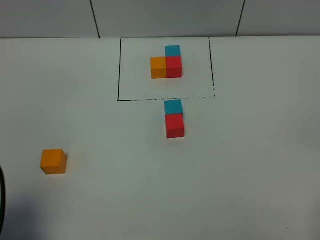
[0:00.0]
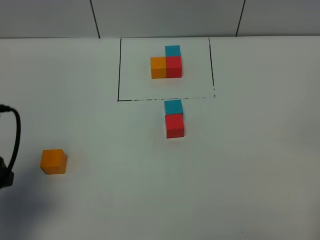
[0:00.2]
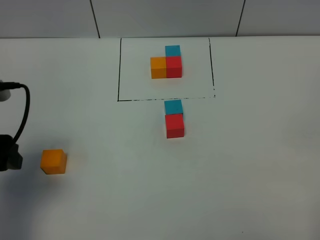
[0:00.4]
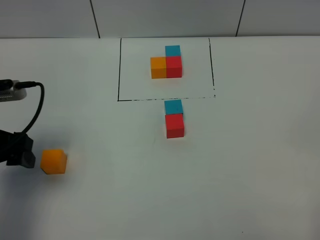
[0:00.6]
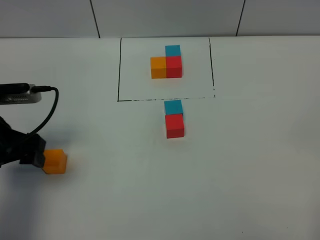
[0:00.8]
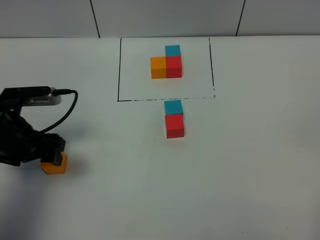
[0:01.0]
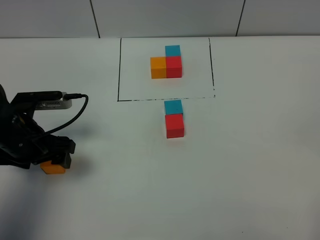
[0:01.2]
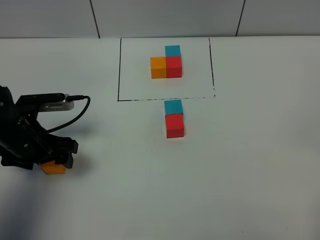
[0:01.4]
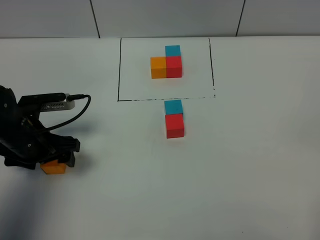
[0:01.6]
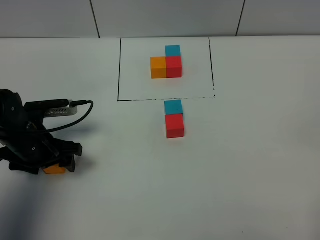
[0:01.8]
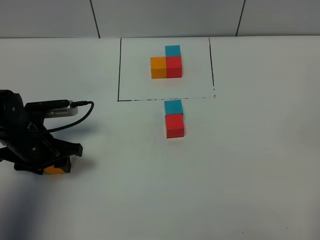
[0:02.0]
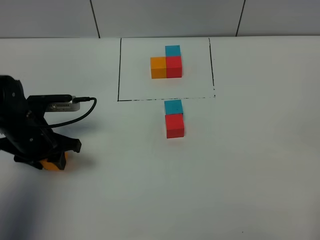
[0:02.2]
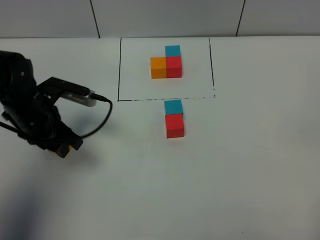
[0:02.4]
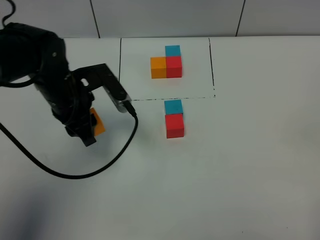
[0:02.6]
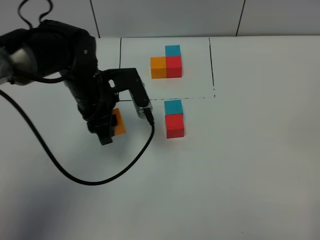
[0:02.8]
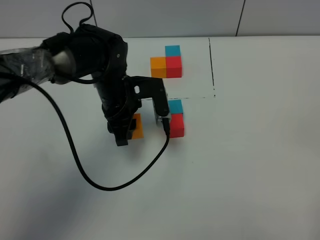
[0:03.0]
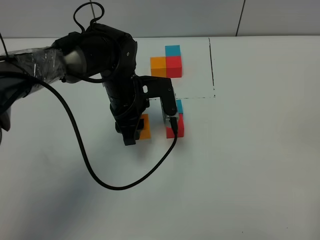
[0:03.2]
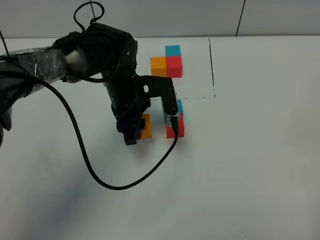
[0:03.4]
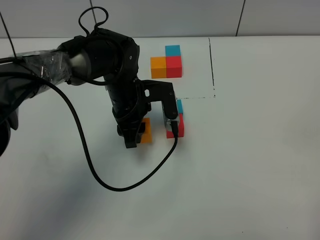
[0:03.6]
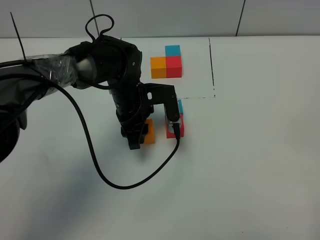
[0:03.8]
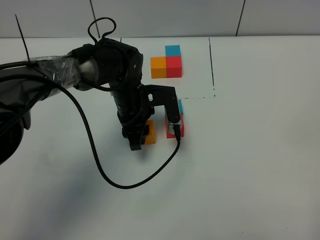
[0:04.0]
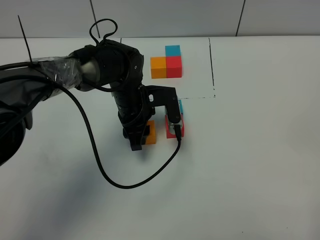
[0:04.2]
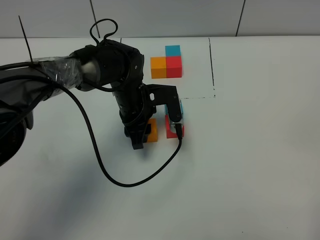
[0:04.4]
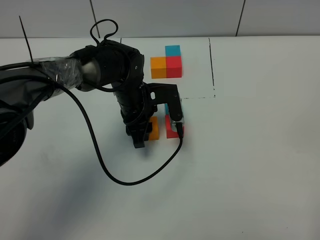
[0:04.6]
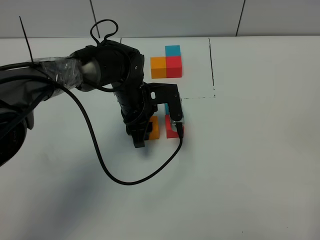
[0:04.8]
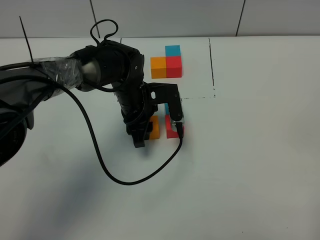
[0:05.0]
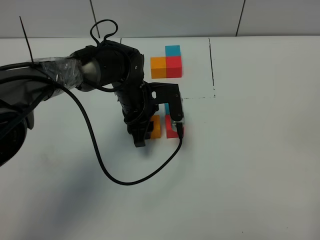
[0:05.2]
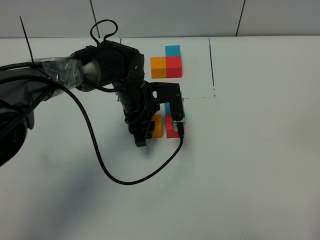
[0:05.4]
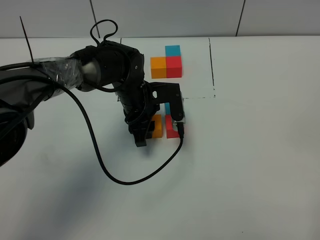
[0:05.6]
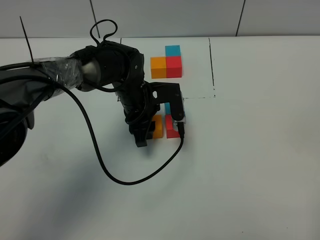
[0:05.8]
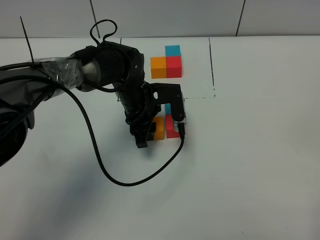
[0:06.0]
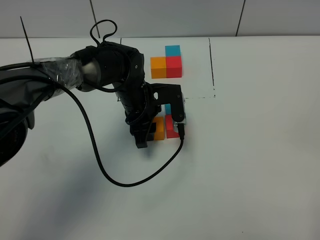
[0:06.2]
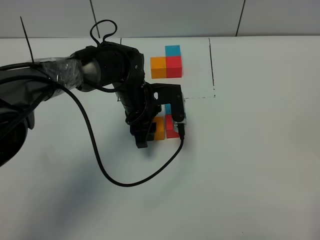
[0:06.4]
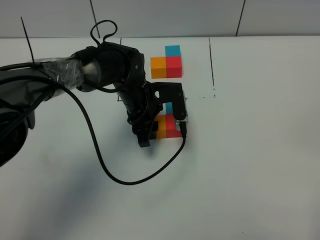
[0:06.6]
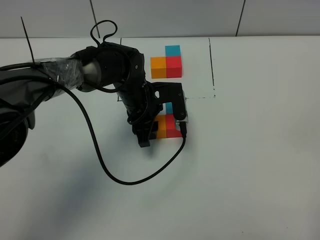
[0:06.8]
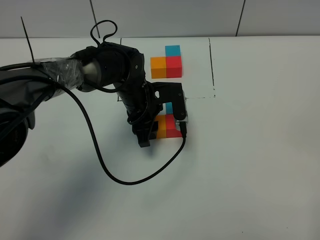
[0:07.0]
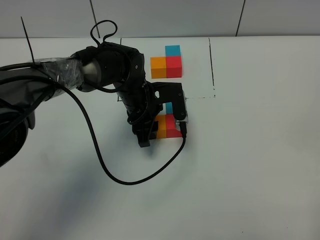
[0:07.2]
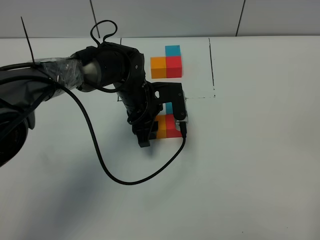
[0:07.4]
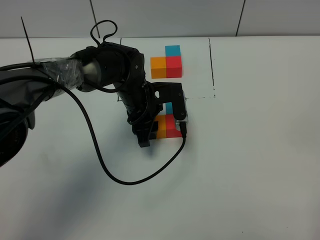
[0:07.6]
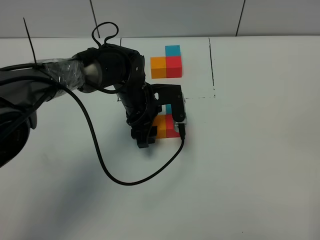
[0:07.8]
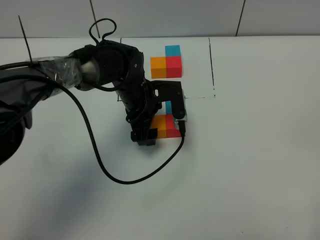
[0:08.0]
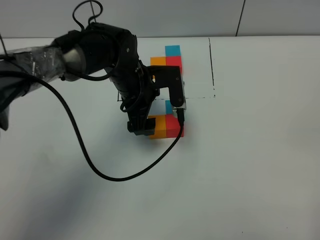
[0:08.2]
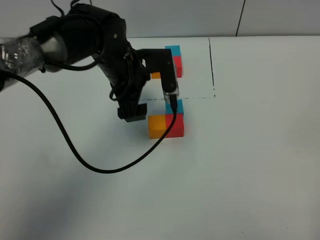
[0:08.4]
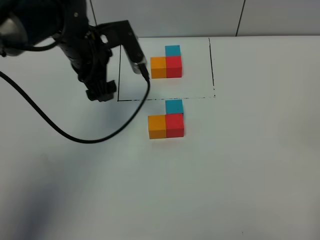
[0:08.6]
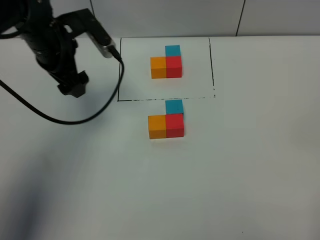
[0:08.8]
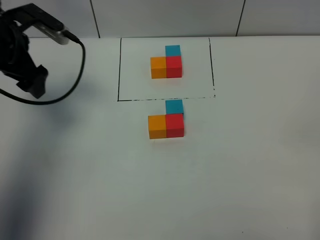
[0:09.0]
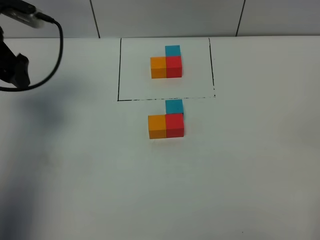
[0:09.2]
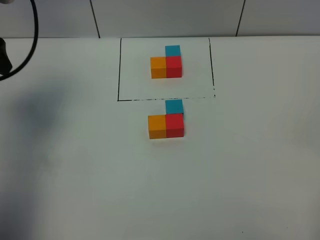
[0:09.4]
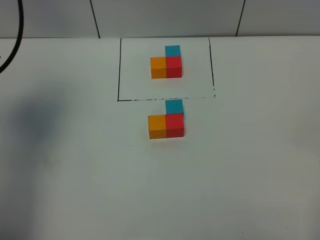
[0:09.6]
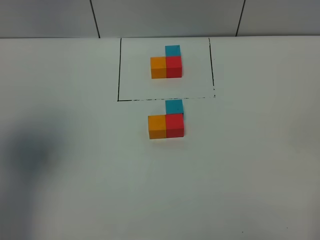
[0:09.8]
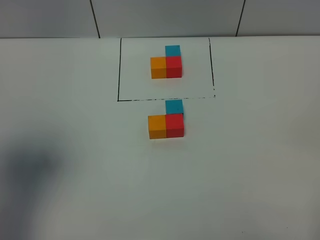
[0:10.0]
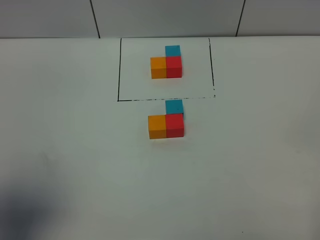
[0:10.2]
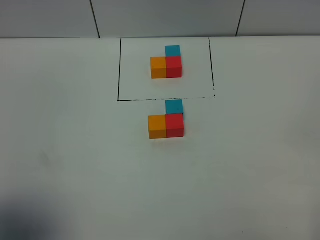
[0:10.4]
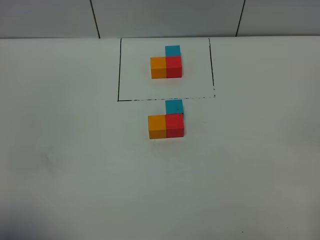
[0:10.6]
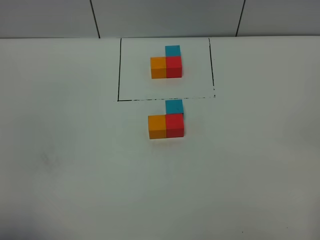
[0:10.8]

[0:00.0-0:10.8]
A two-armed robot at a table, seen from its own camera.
Task of the whole recording: According to the building block template in front, assemble the scattered blocks together.
Step, 0.0 to 7.8 s: Put the orange build block on the left of the red build block.
0.0 to 1.6 s: The left gripper is displaced forward and downward by about 20 cm.
1.6 to 3.0 s: The left gripper heads to the right and forward, covering about 20 cm, and closes up.
3.0 to 4.6 s: The grippers stay close to where they were, moving slightly.
4.6 to 6.2 s: Neither gripper changes place.
6.2 to 7.8 s: The left gripper opens.
7.8 to 9.2 s: The left gripper moves to the left and upward, approximately 30 cm, and opens up.
9.2 to 10.8 s: The left gripper shifts approximately 35 cm backward.

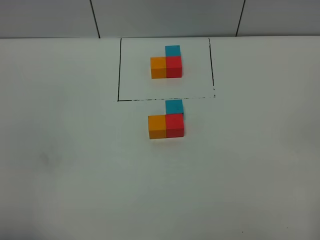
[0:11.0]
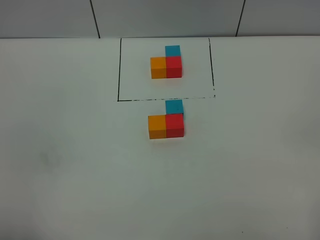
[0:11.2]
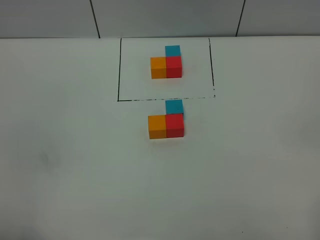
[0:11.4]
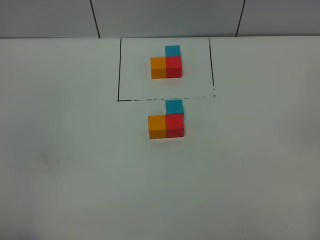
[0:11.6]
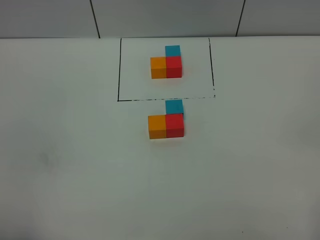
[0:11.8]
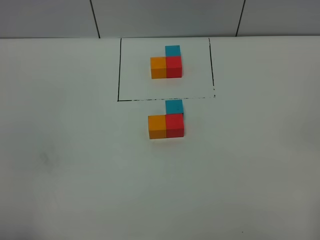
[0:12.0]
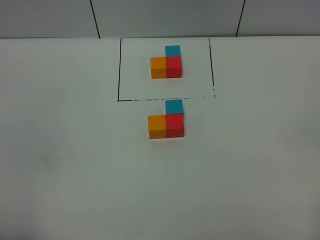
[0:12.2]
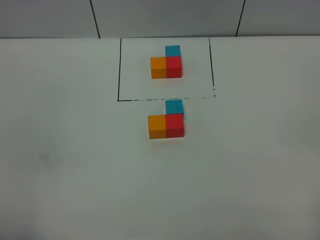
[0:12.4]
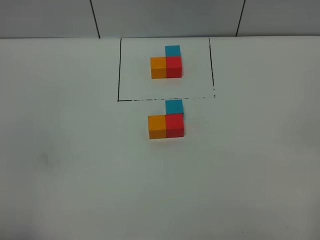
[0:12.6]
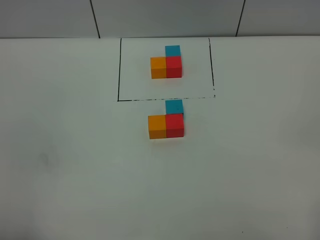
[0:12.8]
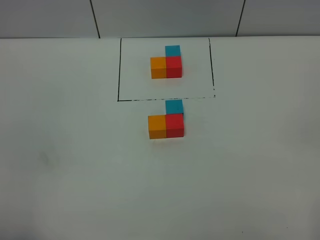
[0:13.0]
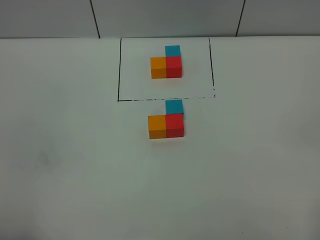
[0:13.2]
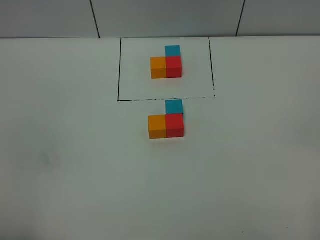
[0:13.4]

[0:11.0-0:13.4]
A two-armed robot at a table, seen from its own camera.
Task of the whole recording: According to the building block template in front, assemble the scattered blocks together.
12.2 to 13.4 s: Both grippers stay put.

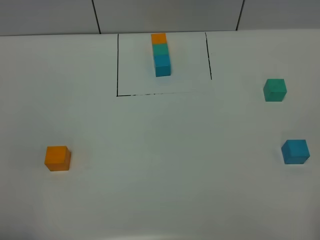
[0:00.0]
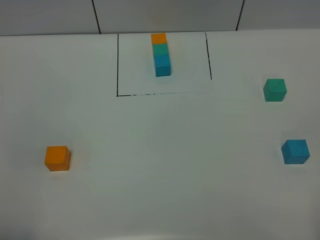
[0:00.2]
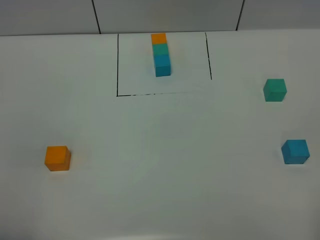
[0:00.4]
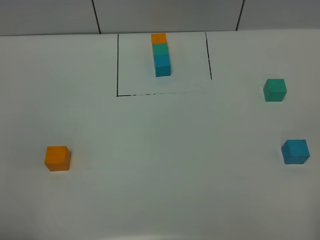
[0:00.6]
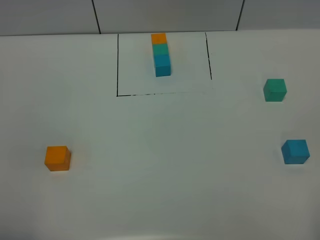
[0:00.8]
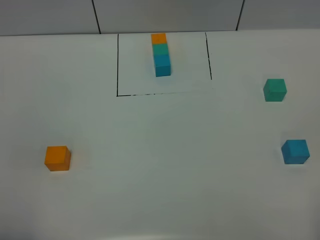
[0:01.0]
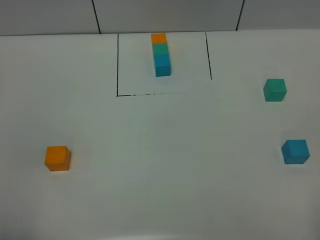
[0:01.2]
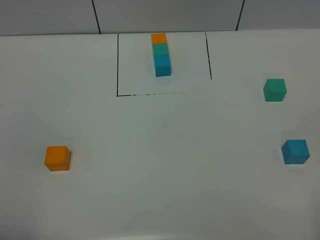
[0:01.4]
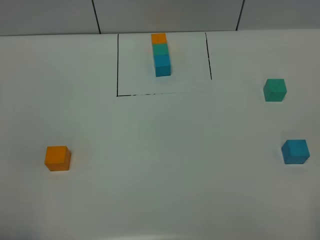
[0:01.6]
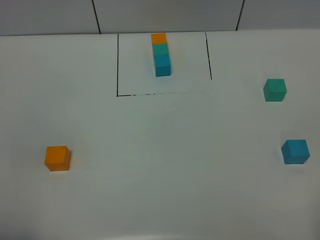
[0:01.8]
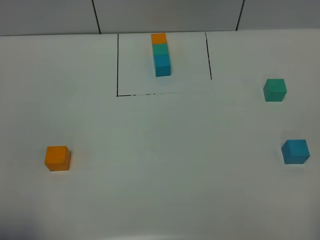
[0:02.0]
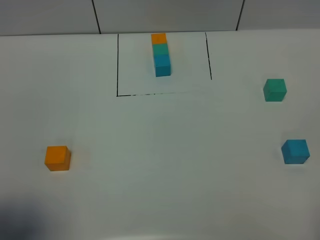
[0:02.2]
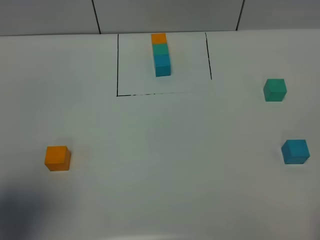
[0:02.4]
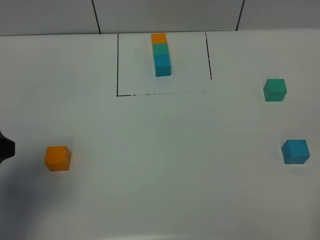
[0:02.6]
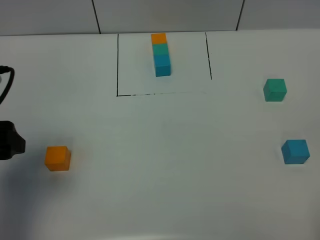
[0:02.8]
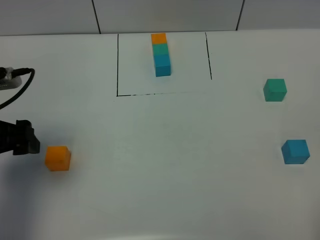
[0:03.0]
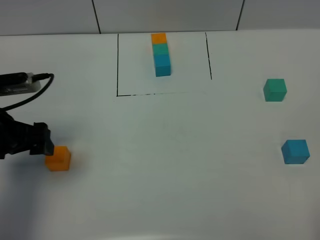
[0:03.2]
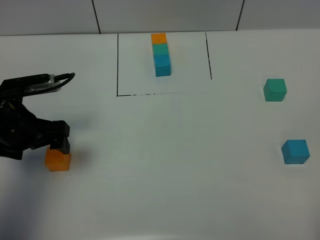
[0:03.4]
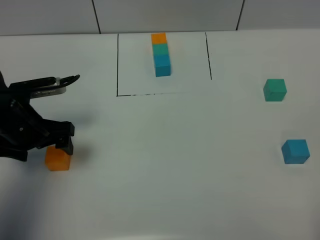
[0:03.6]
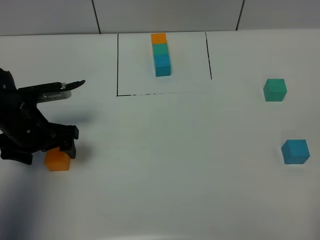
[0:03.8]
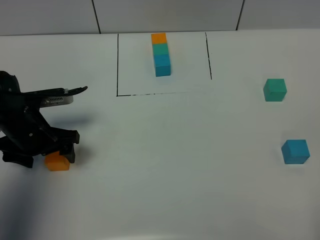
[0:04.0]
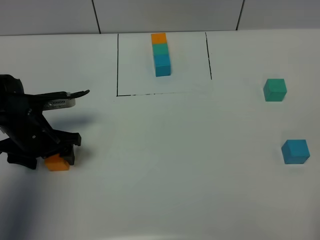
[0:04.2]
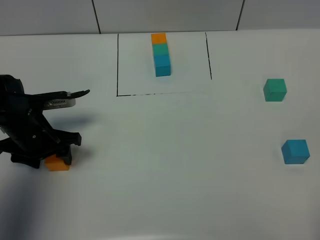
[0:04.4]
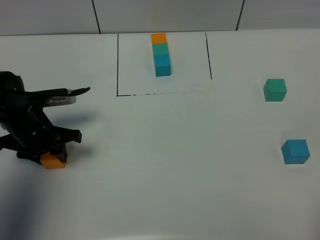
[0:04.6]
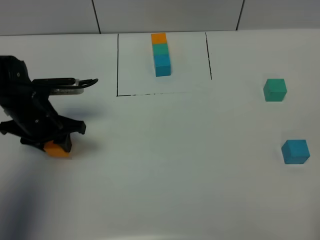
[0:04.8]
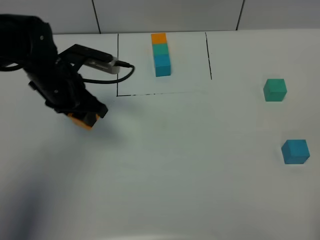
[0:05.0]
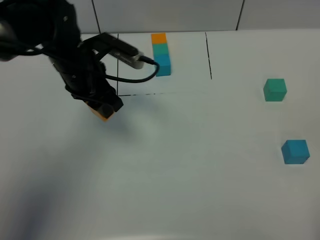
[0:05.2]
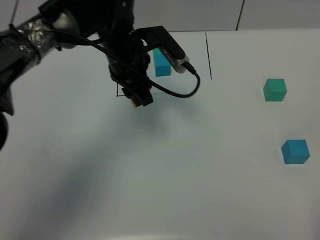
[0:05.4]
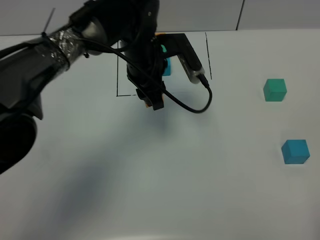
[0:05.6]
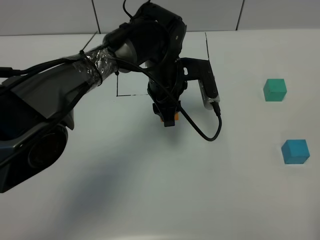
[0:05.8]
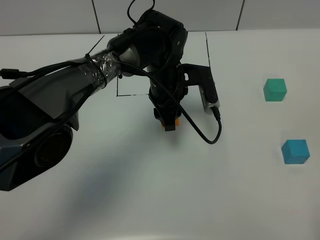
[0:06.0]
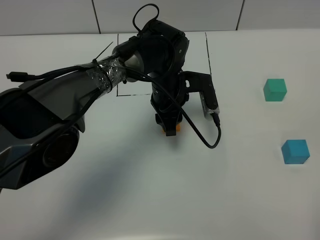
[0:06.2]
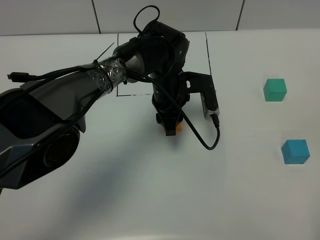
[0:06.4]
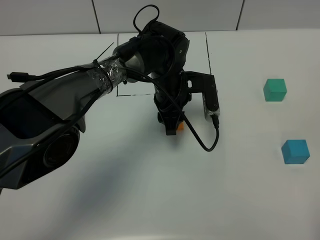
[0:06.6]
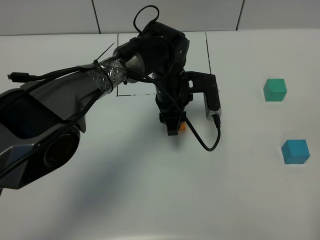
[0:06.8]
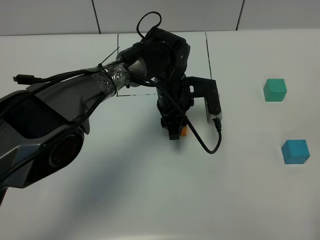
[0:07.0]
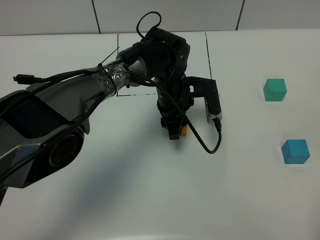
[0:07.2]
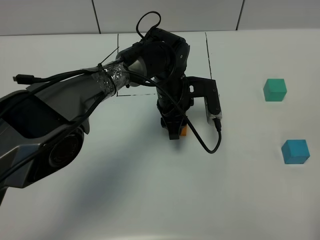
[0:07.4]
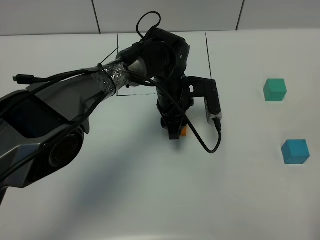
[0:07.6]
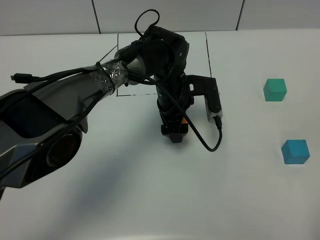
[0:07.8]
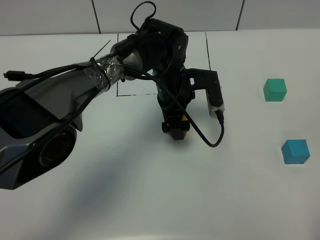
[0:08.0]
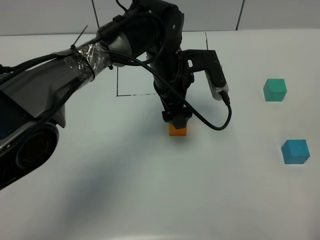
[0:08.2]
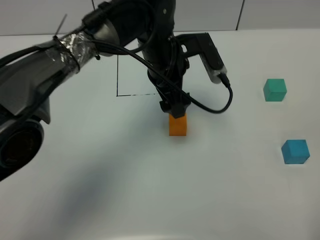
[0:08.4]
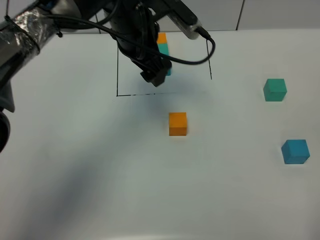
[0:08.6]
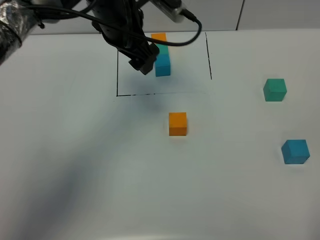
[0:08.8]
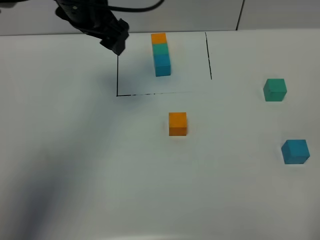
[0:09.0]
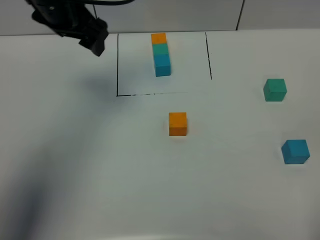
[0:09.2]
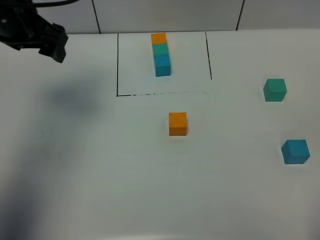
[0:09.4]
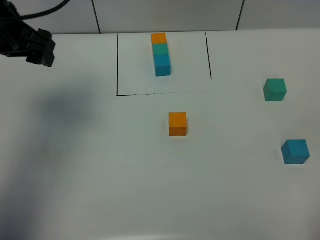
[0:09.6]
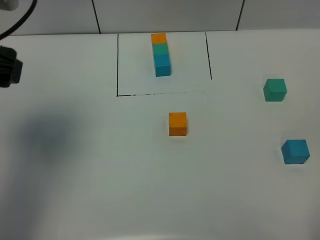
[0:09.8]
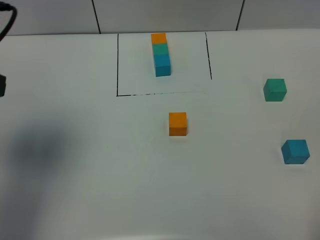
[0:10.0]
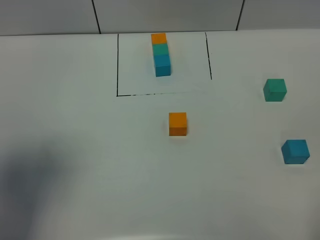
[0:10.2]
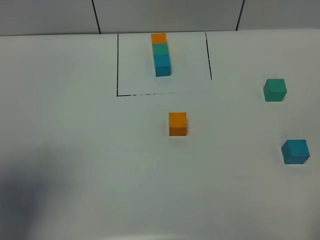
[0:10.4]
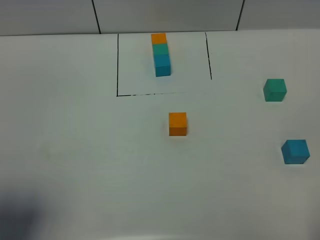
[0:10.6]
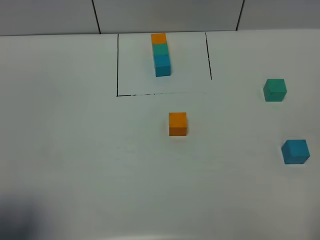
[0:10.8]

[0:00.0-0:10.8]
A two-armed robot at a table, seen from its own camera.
Task of the whole recording: According to the building block template in front, assemble the scattered blocks together.
Step, 0.0 to 7.6 s: Put the orange build block in the center of the table.
0.0 to 1.6 s: The two grippers keep their place.
1.6 to 3.0 s: The left gripper goes approximately 25 cm forward.
3.0 to 4.6 s: The left gripper shifts approximately 15 cm downward and forward, and closes up.
4.6 to 6.2 s: The left gripper shifts about 25 cm to the right.
6.2 to 7.8 s: The left gripper opens up.
7.8 to 9.2 s: The left gripper shifts approximately 25 cm to the left and upward.
9.2 to 10.8 s: The left gripper goes approximately 35 cm backward.
